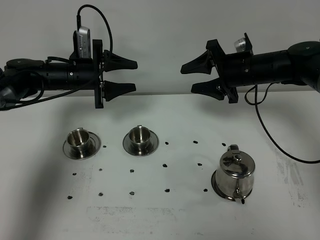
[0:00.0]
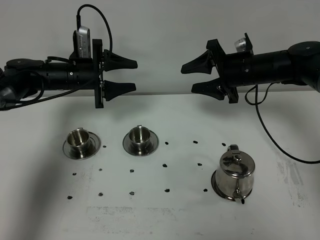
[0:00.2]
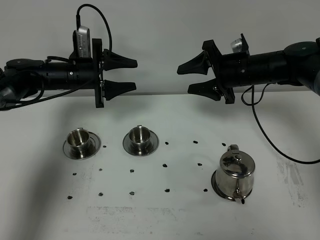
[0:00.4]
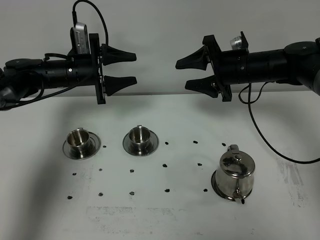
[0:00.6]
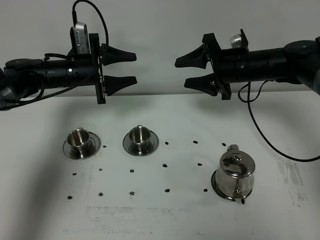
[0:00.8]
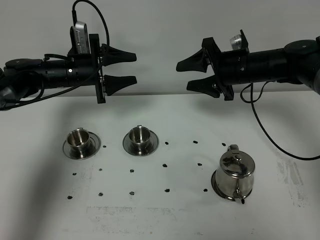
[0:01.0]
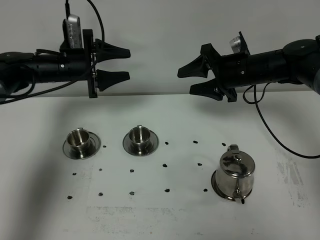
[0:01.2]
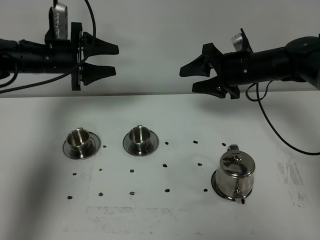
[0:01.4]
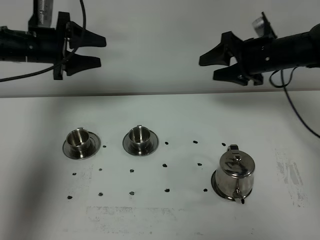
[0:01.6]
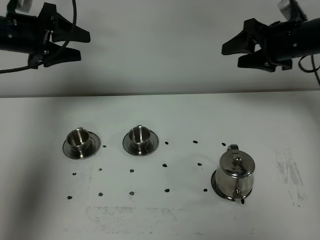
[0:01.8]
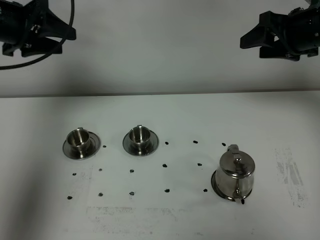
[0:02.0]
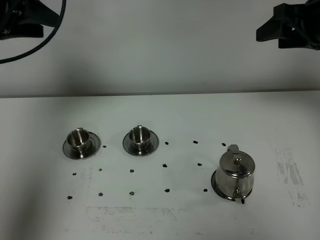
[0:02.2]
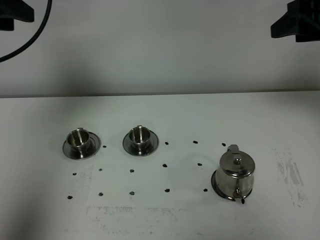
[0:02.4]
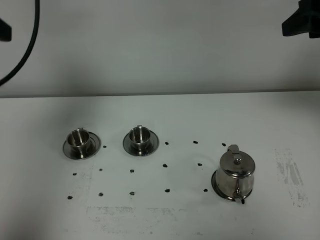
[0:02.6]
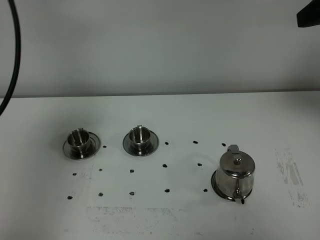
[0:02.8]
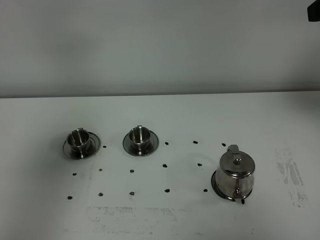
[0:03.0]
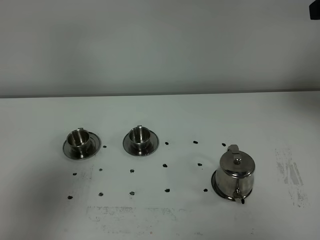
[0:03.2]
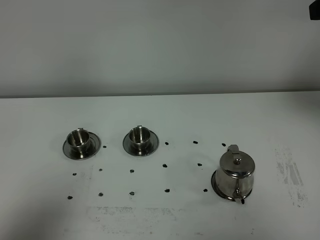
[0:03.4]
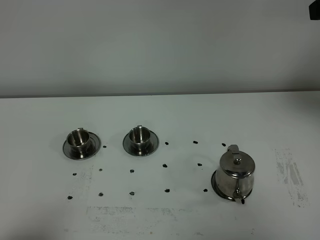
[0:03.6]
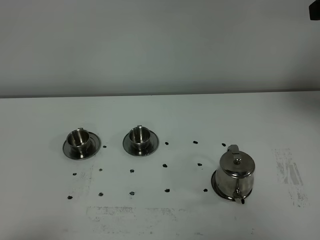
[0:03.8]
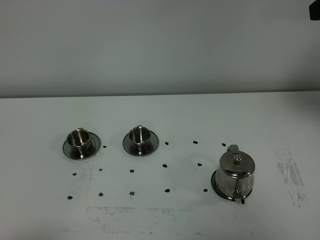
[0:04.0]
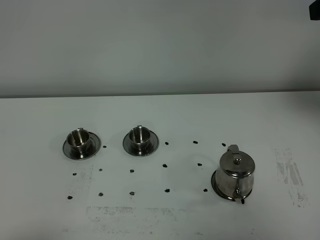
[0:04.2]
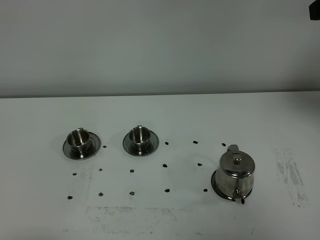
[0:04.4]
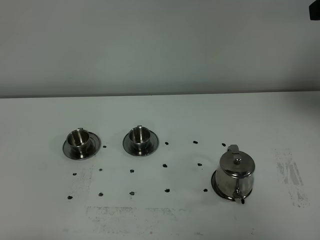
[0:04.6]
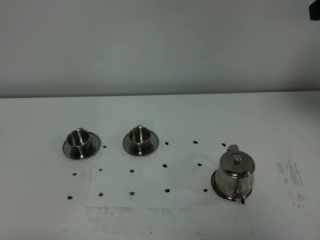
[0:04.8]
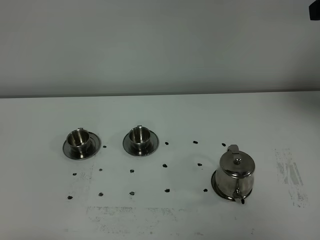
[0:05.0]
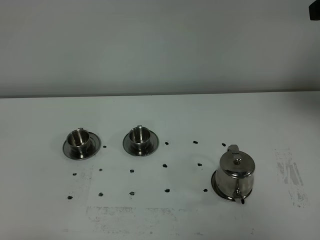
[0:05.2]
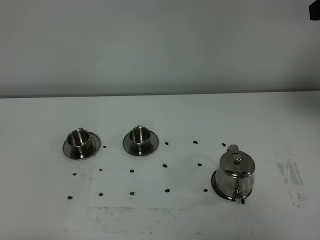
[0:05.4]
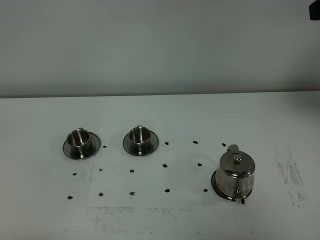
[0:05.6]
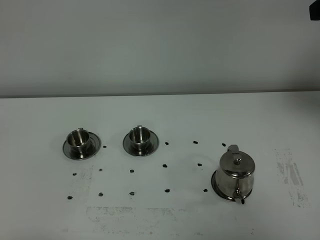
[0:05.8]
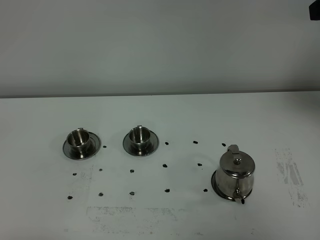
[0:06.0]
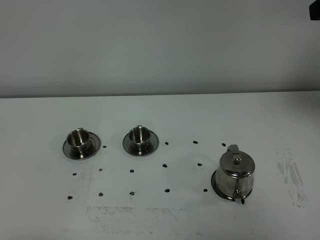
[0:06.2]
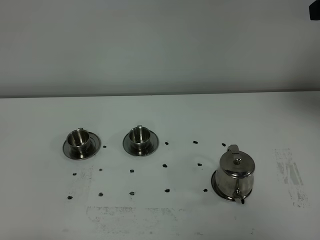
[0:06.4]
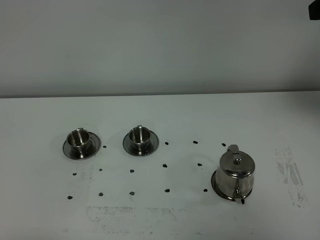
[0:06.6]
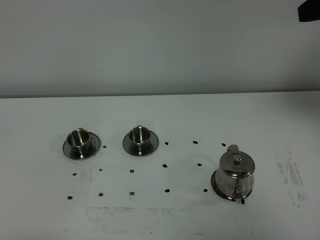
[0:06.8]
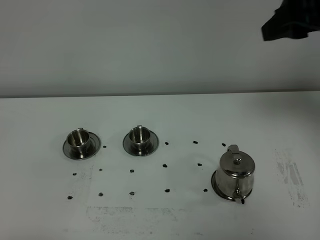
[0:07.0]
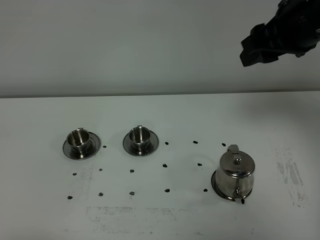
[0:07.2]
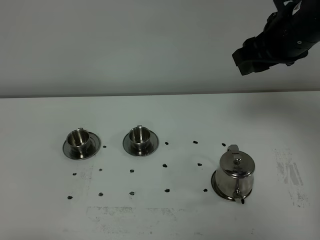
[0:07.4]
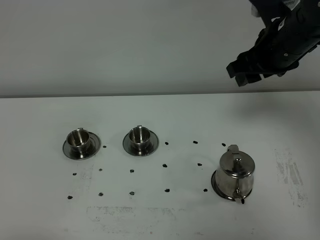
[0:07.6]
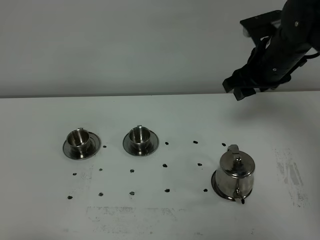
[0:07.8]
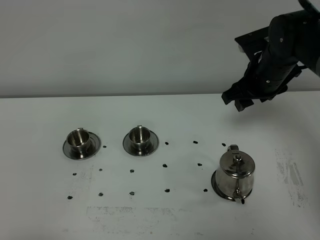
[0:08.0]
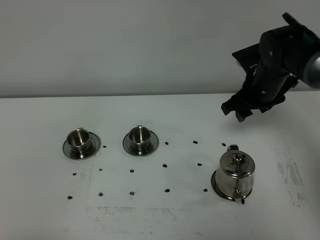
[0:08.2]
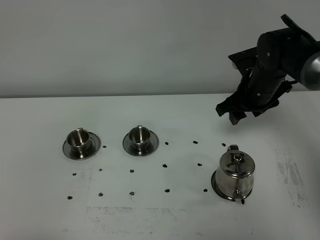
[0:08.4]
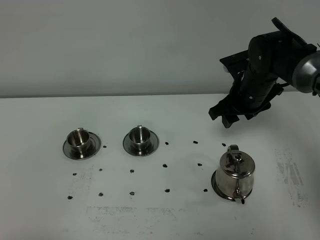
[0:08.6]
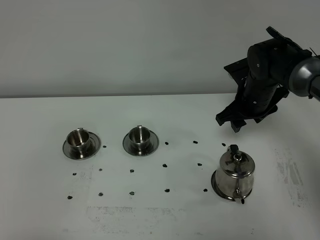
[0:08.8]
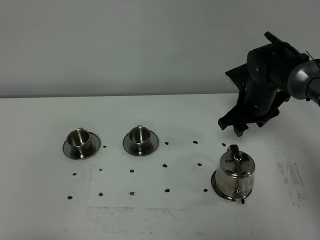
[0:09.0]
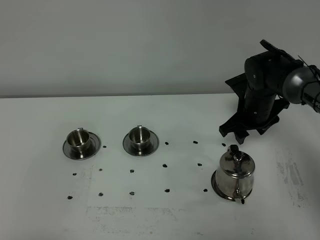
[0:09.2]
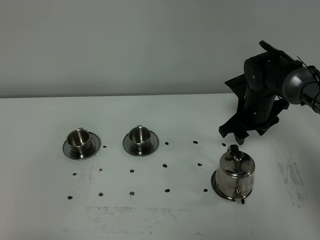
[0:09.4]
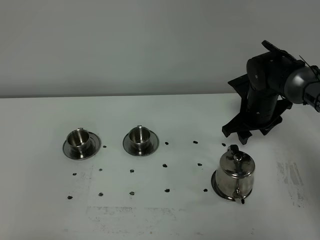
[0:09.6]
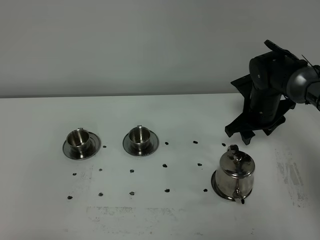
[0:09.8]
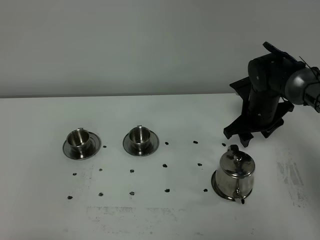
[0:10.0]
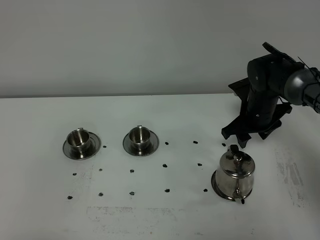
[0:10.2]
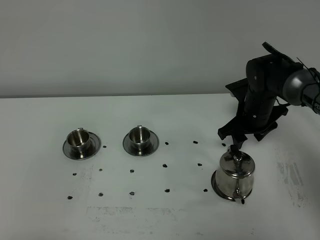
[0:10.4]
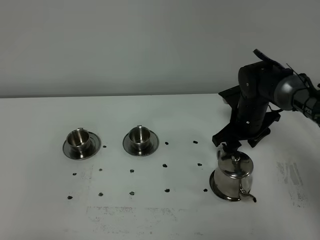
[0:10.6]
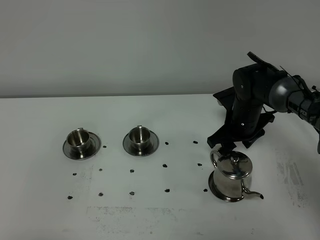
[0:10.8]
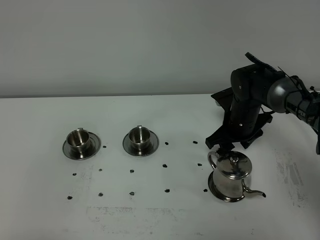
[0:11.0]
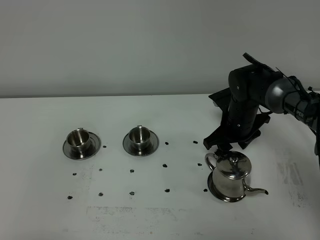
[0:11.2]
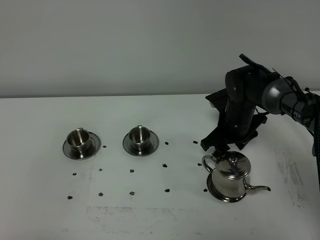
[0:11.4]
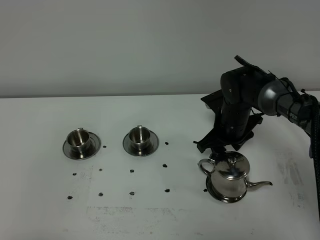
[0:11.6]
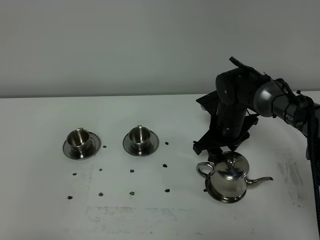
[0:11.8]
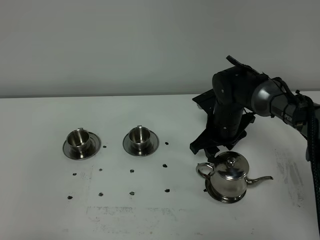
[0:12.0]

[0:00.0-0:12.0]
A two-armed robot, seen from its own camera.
Task of the whole recording: grasp the stainless steel teapot and pour the tea into the two stainless steel teacups one by one, put the stainless steel teapot back in its original place.
0:00.0 to 0:01.6: The right gripper changes place by some 5 cm; the left gripper heads upward and to the left, covering some 10 cm.
0:01.6 to 0:03.0: The left gripper goes some 40 cm backward and upward. Meanwhile the right gripper travels upward and backward by roughly 25 cm.
0:03.0 to 0:04.4: The left gripper shifts approximately 25 cm downward and backward.
0:04.4 to 0:06.0: Both grippers stay about where they are.
0:06.0 to 0:07.6: The right gripper heads downward, to the left and forward, covering approximately 20 cm.
0:07.6 to 0:09.0: The right gripper travels downward by about 15 cm.
0:09.0 to 0:10.4: There are only small adjustments of the grippers.
0:10.4 to 0:12.0: The right gripper shifts roughly 5 cm to the left.

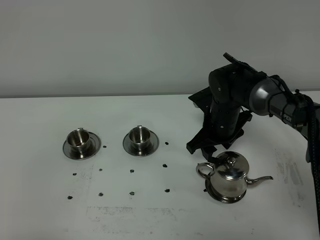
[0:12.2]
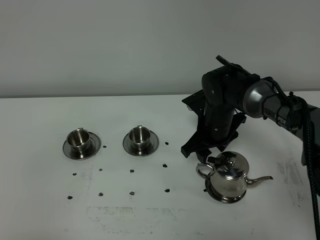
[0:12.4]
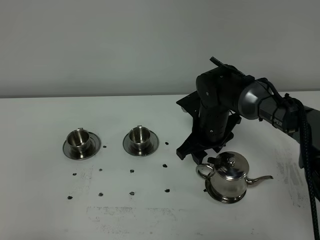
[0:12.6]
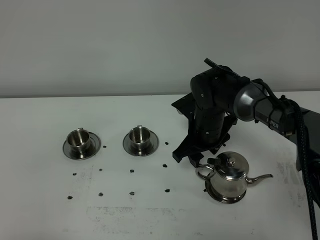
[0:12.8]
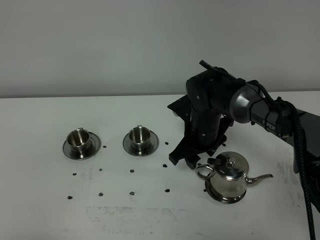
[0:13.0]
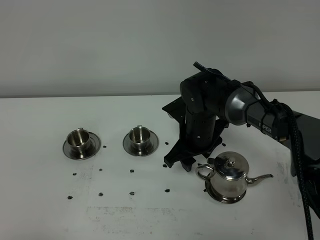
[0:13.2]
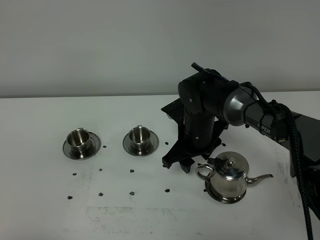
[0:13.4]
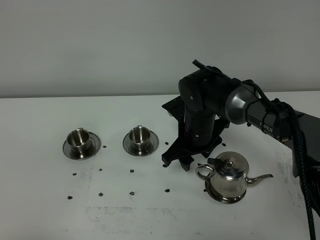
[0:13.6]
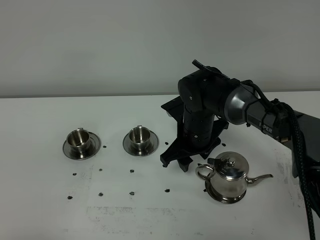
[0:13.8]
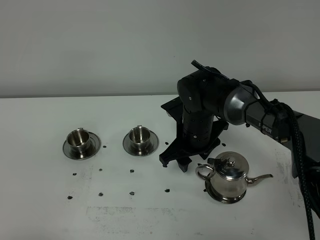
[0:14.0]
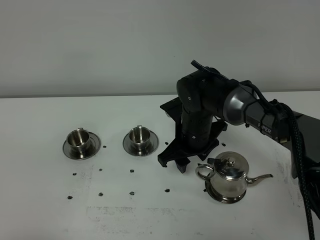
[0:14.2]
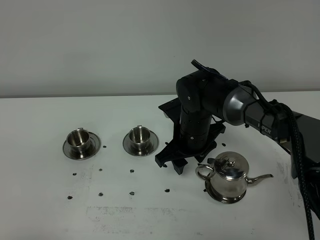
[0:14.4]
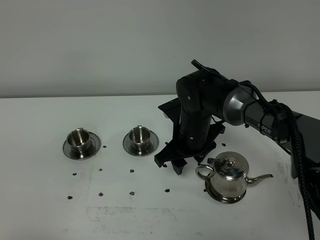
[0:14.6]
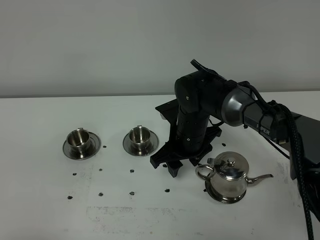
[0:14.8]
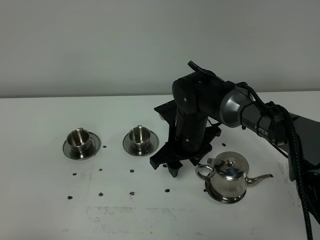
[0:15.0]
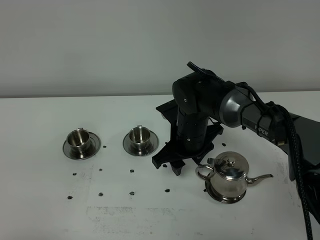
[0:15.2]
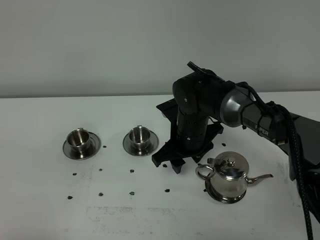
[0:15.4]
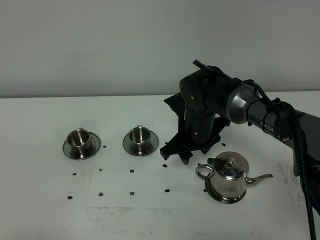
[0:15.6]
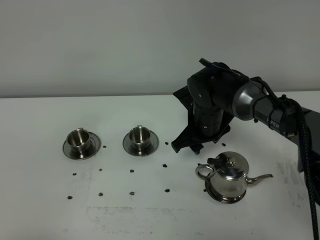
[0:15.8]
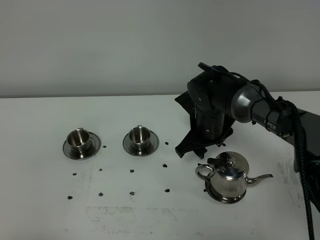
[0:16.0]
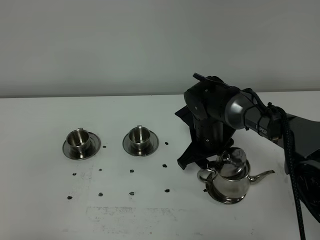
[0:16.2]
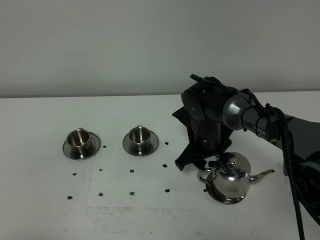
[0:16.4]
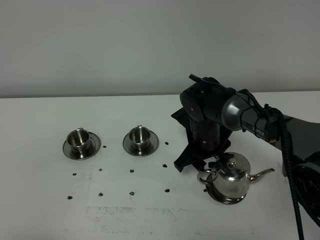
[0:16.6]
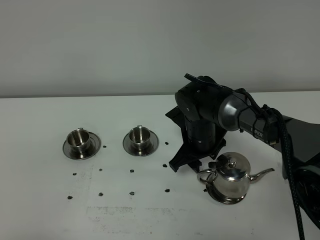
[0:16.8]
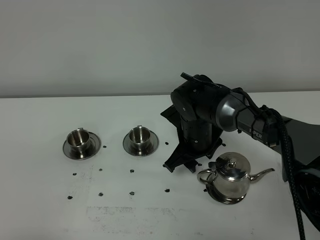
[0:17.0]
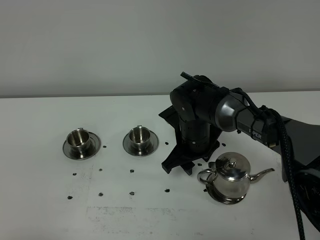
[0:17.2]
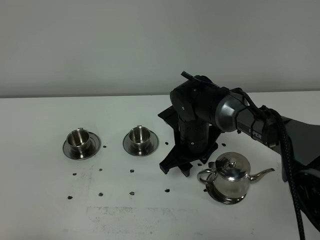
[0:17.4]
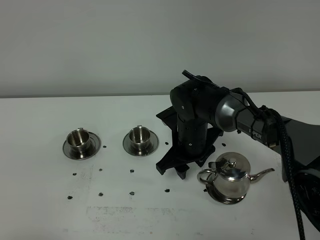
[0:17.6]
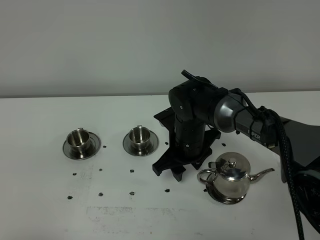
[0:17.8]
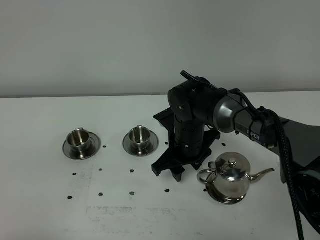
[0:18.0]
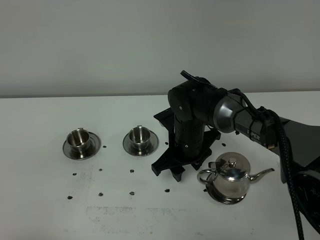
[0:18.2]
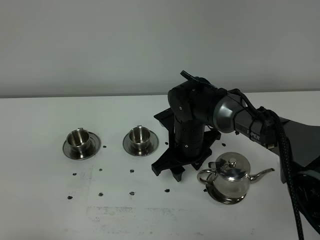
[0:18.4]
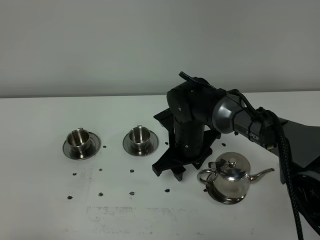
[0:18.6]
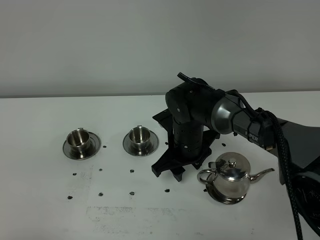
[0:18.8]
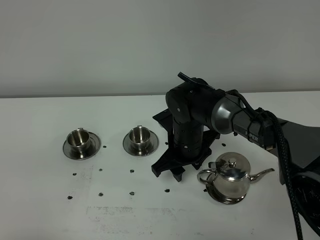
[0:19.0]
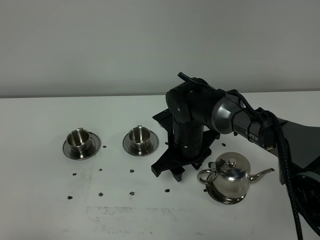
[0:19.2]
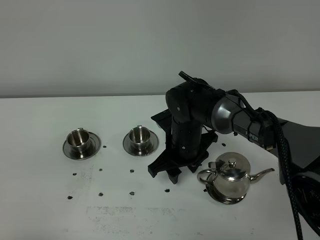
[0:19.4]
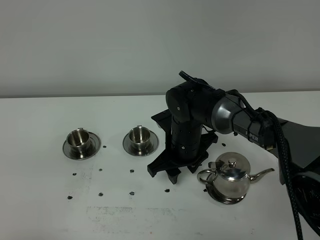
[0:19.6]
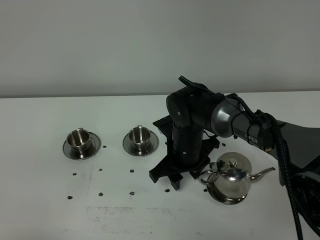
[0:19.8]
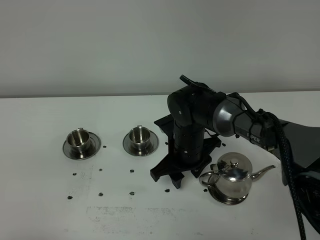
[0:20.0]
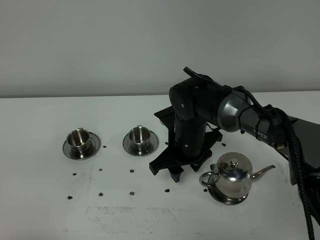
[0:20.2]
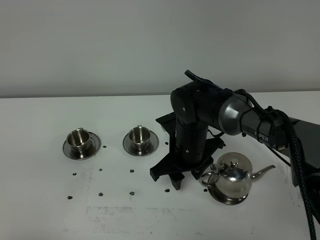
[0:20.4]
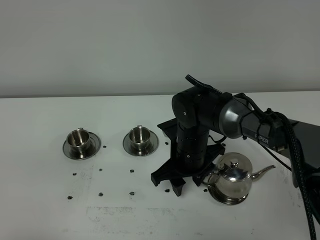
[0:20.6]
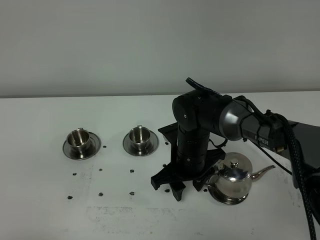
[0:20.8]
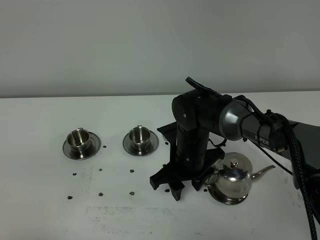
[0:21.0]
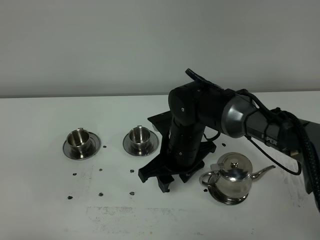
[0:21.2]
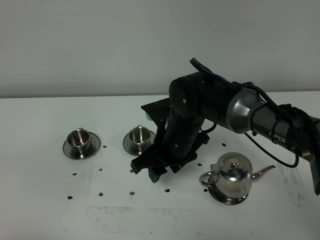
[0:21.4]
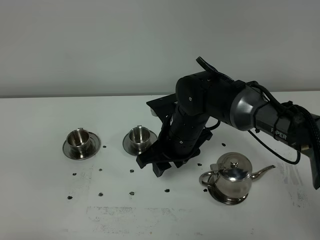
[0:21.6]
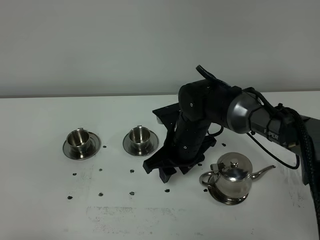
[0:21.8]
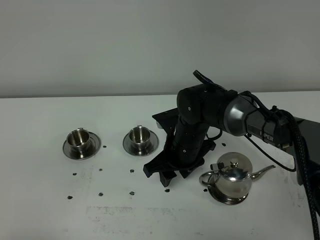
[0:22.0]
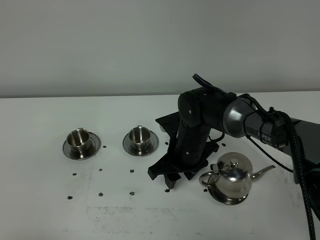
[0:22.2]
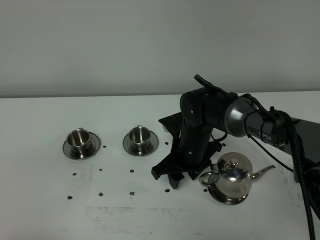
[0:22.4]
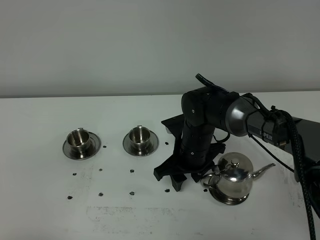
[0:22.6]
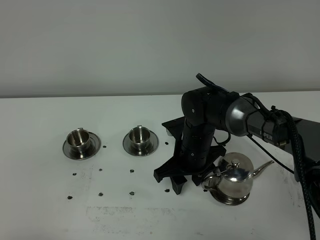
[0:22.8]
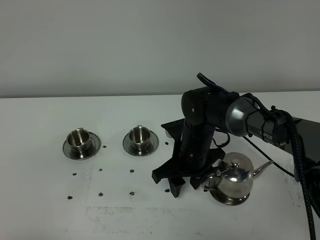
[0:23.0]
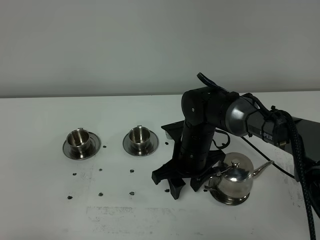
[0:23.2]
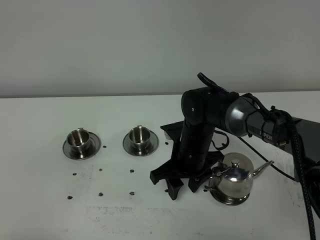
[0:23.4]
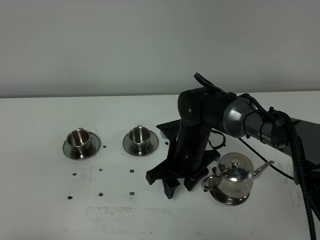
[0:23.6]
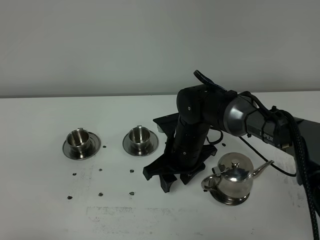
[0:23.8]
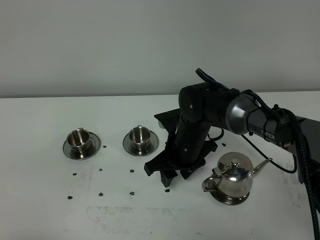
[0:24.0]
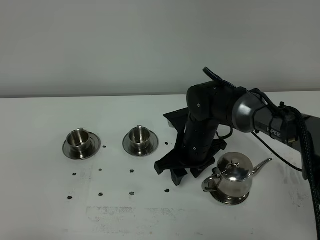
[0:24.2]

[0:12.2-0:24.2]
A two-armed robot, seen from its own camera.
Task of the whole recording: grasp the stainless steel teapot and pour the tea into the two stainless steel teacups one by one, put the stainless steel teapot back in its original place.
0:12.2 to 0:13.8: The right gripper travels to the left by some 5 cm.
0:13.8 to 0:18.2: There are only small adjustments of the grippers.
0:18.2 to 0:19.8: Both grippers stay about where they are.
0:19.8 to 0:21.2: The grippers move only a little.
0:21.2 to 0:22.6: The right gripper ends up approximately 5 cm from where it was.
0:22.6 to 0:24.2: There are only small adjustments of the grippers.
